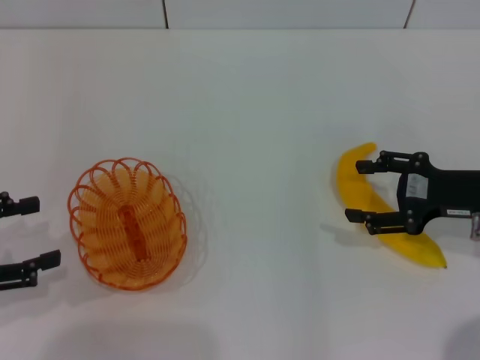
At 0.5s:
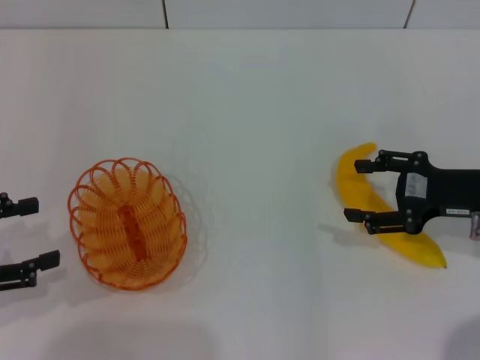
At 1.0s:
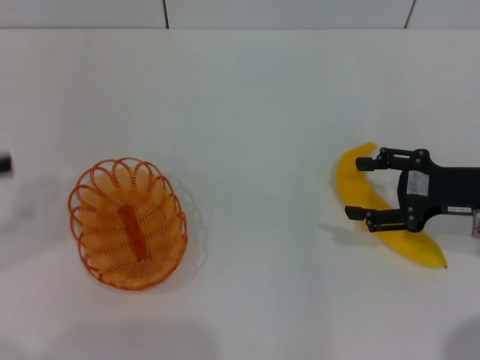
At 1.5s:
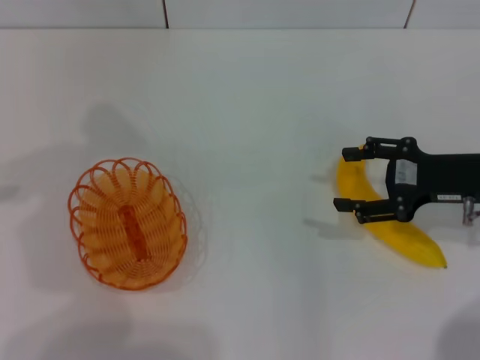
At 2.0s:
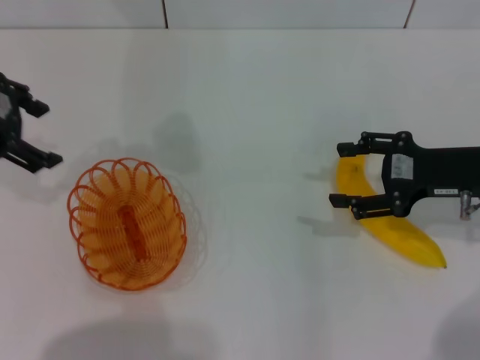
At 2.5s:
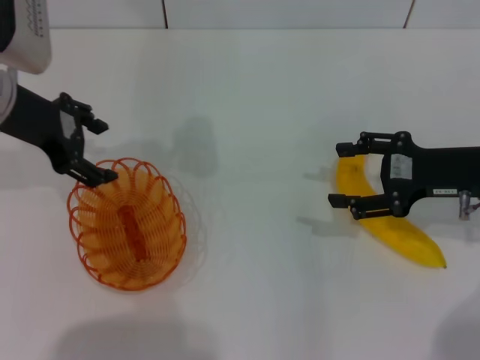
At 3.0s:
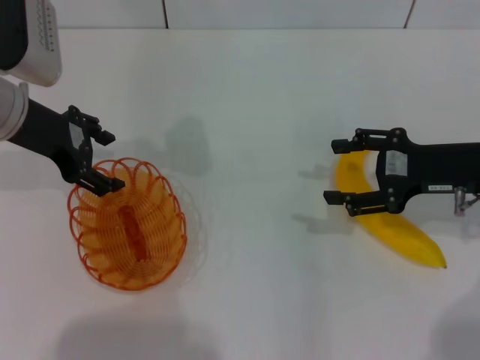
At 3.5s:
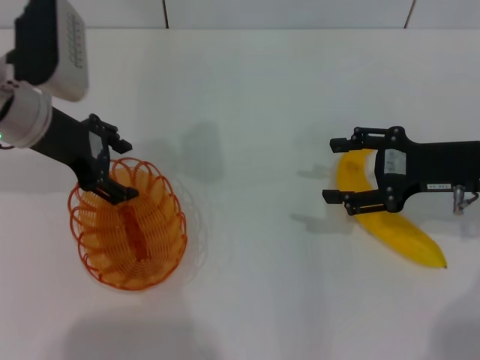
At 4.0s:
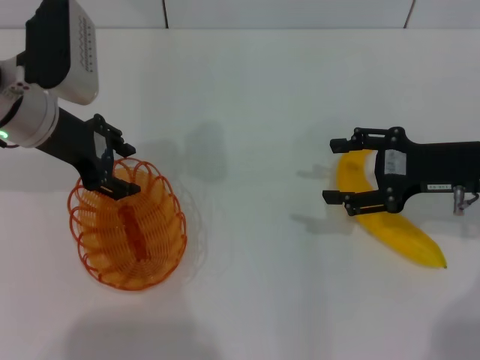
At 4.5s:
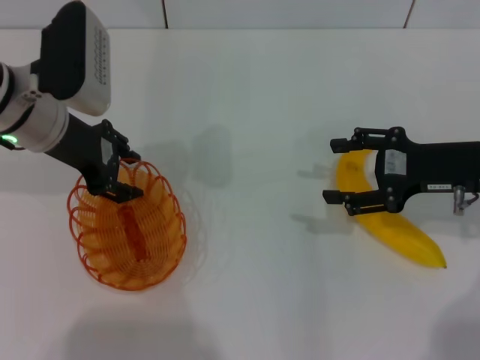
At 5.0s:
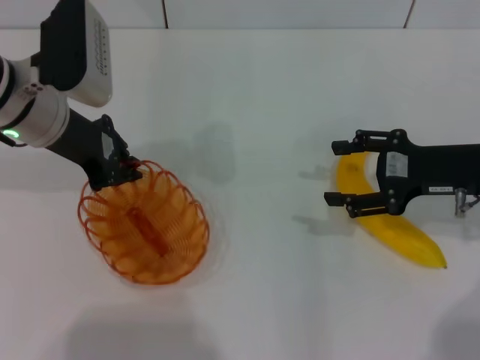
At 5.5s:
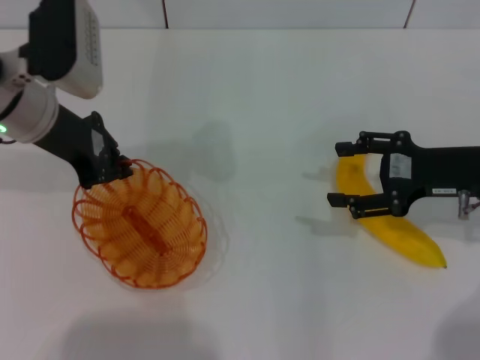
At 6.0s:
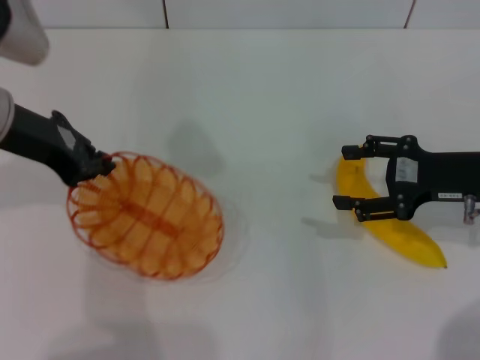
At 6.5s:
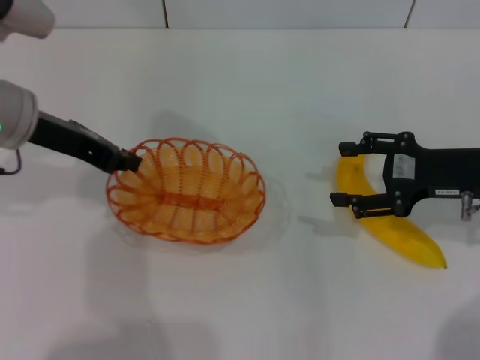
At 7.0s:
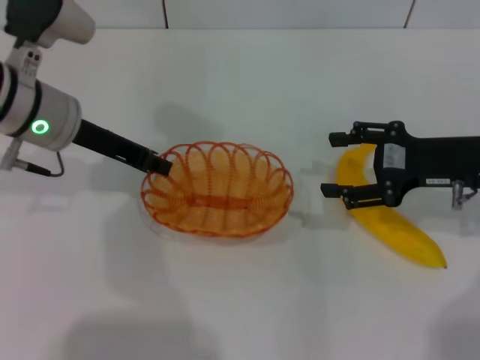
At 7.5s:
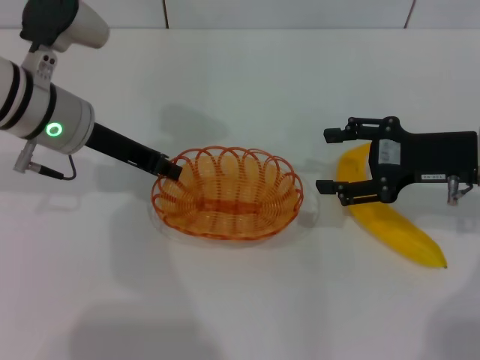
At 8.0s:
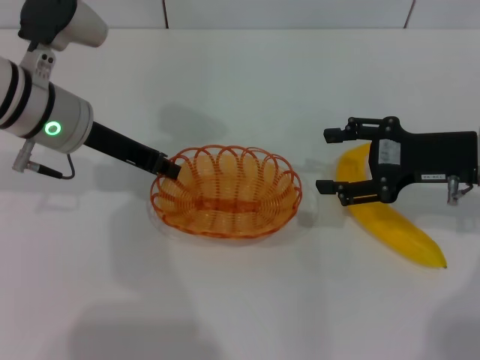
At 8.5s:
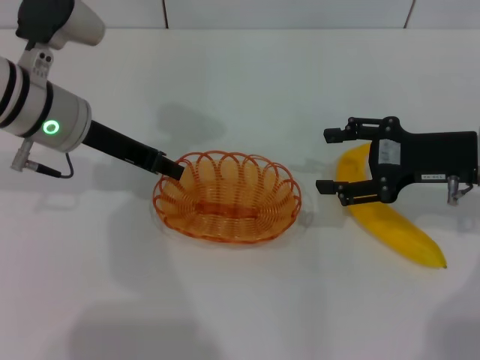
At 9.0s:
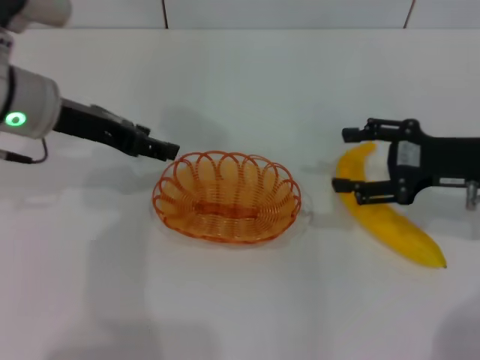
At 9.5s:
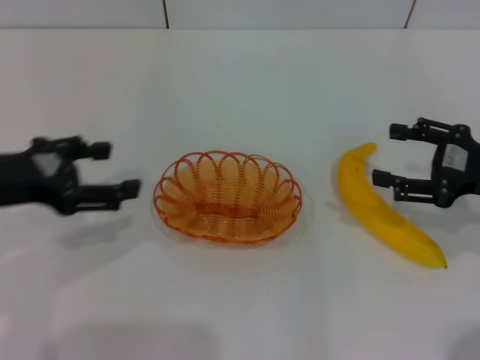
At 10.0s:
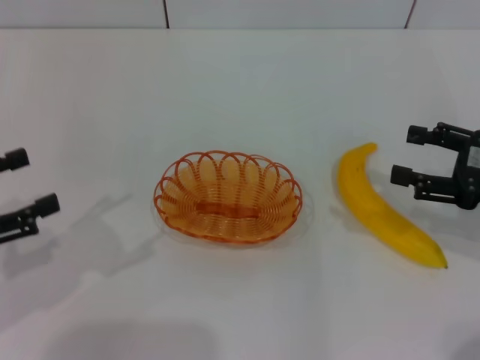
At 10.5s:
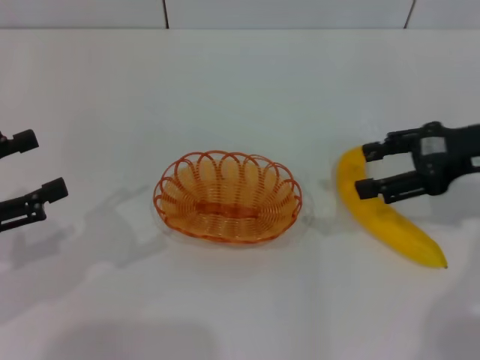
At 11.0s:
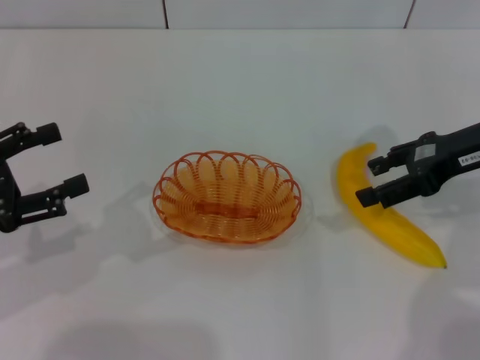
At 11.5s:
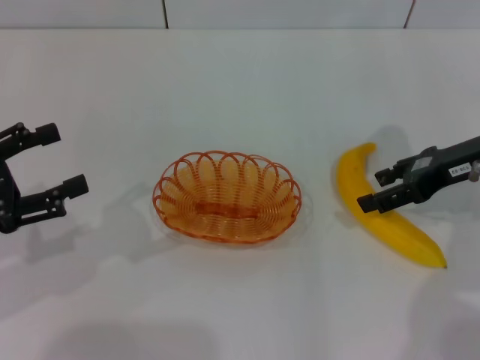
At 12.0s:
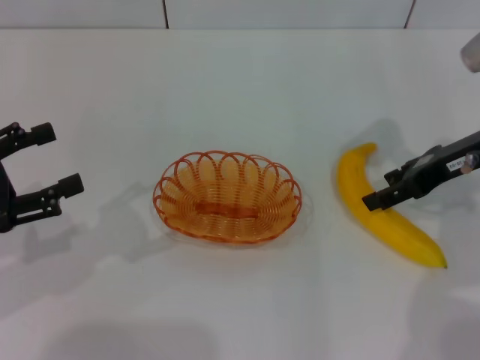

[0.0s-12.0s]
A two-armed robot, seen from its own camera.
Step, 0.0s to 5.5s: Pick up the basket with the left gripper.
Step, 6.5s to 9.0s: Place the basket in the center of view with the left gripper.
0.0s to 2.0s: The left gripper shifts roughly 20 cm forward, upward and to the right.
2.0s to 4.0s: The left gripper shifts about 10 cm downward and to the right.
4.0s to 6.0s: The left gripper changes place by approximately 5 cm, and closes.
6.0s to 8.0s: The left gripper moves approximately 5 cm.
8.0s to 10.0s: The left gripper moves backward and to the left, some 25 cm, and opens, while the right gripper travels to the right and backward by approximately 10 cm.
10.0s to 12.0s: The right gripper moves forward and to the left, approximately 10 cm.

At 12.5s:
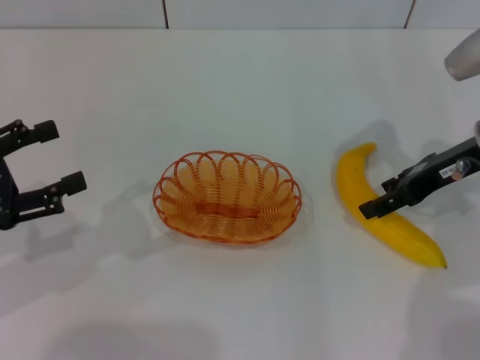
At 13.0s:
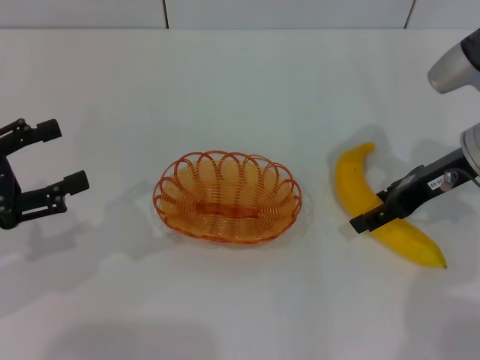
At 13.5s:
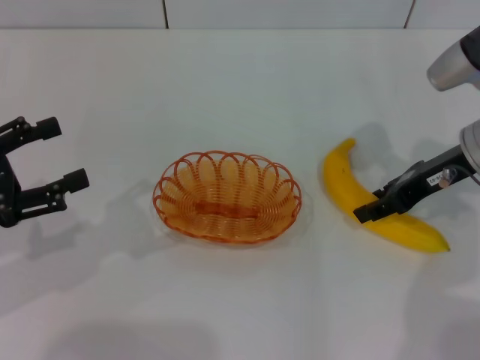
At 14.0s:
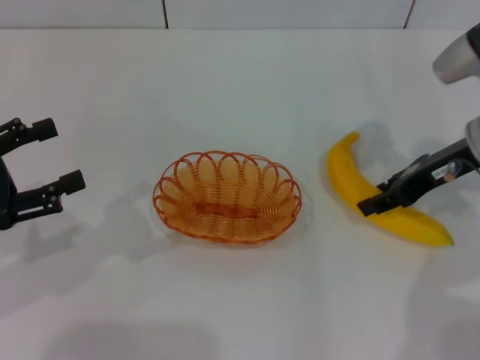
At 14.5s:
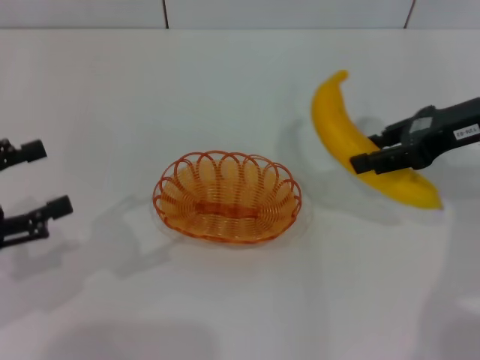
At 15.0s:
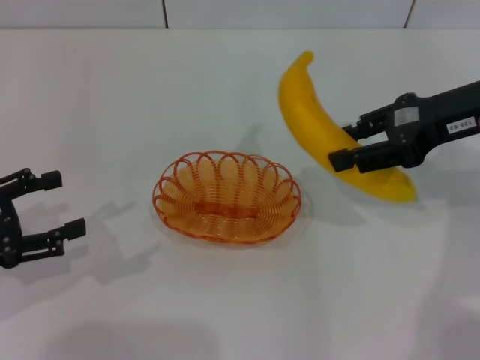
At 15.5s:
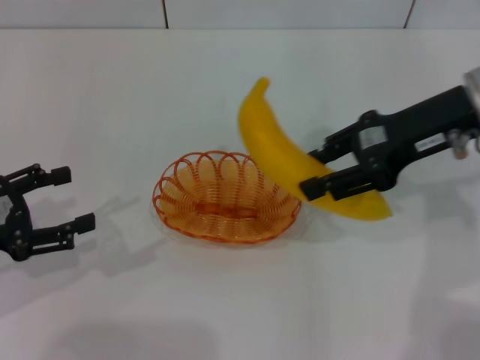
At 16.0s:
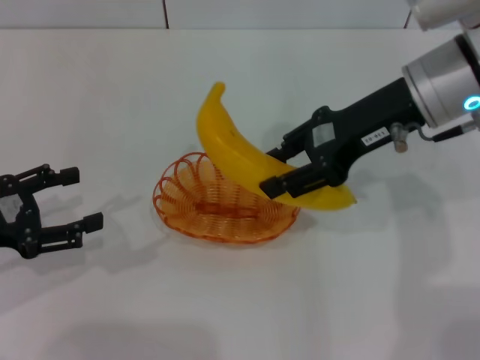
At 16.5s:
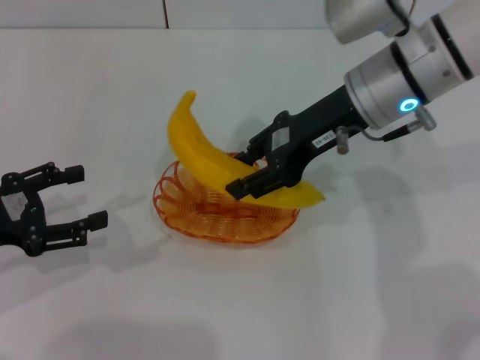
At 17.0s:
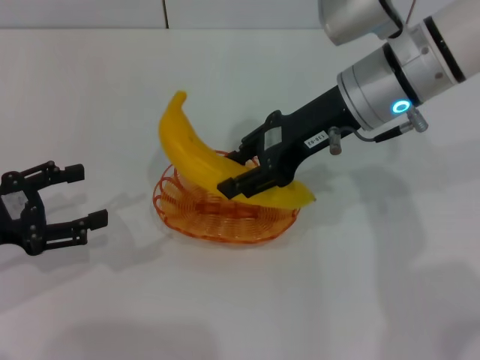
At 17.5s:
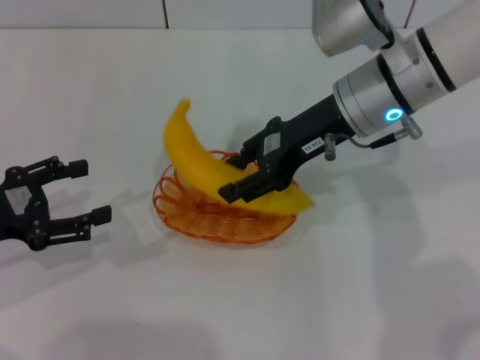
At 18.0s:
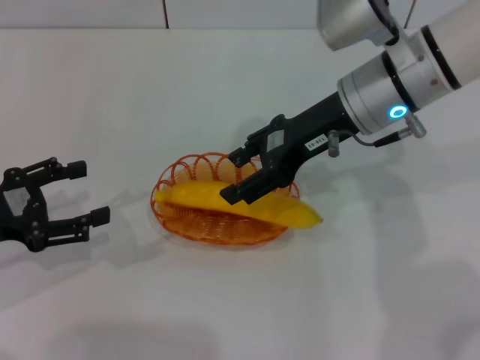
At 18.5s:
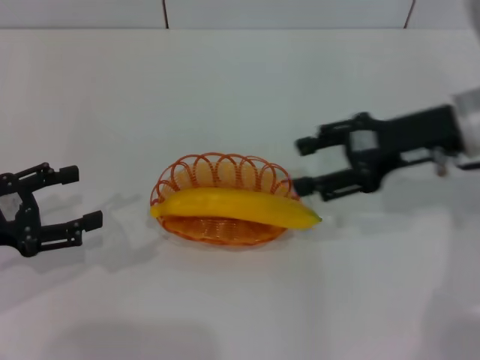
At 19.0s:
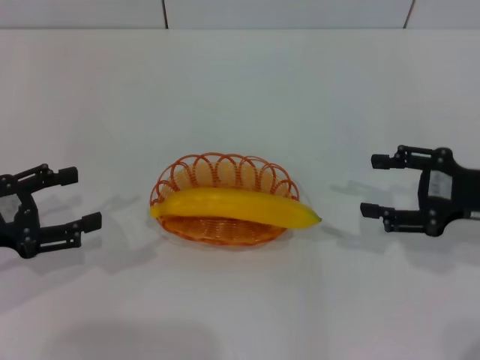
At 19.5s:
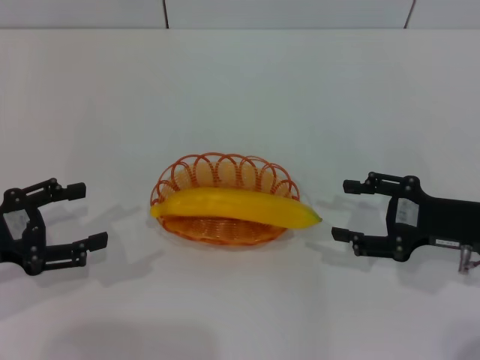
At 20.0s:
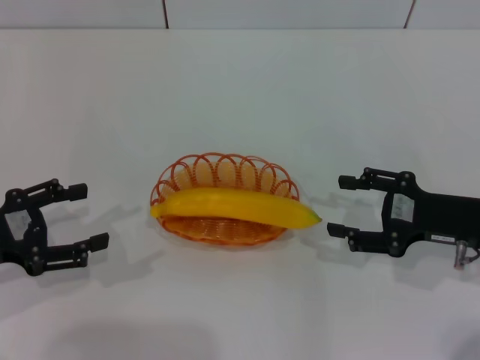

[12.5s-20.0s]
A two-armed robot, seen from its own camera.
Step, 14.5s to 18.0s: Place the banana into the basket with the right gripper.
12.5s to 14.5s: The right gripper is displaced upward by some 5 cm, and closes its fingers.
14.5s to 16.5s: The right gripper moves to the left, some 15 cm.
16.5s to 18.0s: The right gripper opens.
18.0s to 20.0s: The right gripper is displaced to the right, backward and downward by some 20 cm.

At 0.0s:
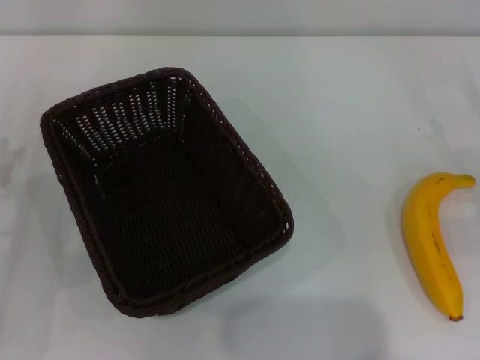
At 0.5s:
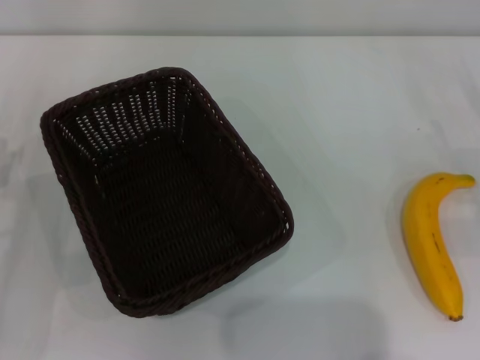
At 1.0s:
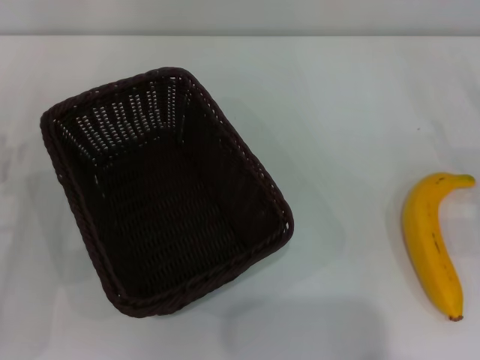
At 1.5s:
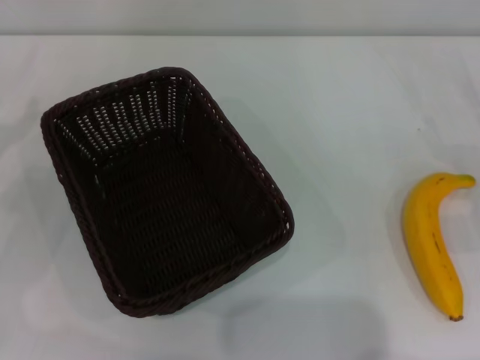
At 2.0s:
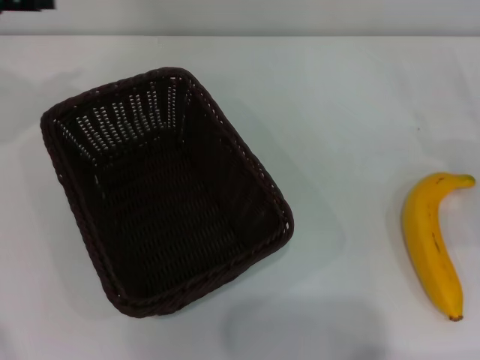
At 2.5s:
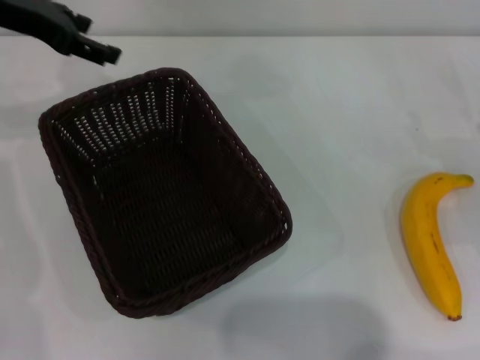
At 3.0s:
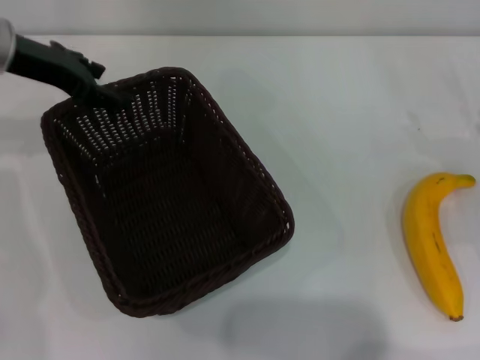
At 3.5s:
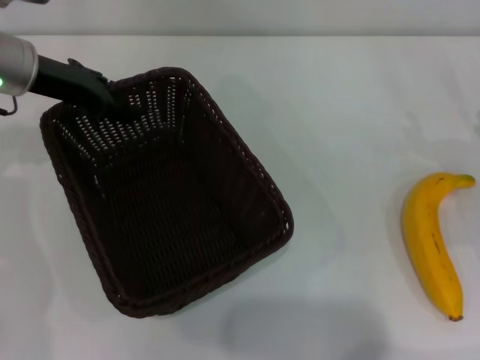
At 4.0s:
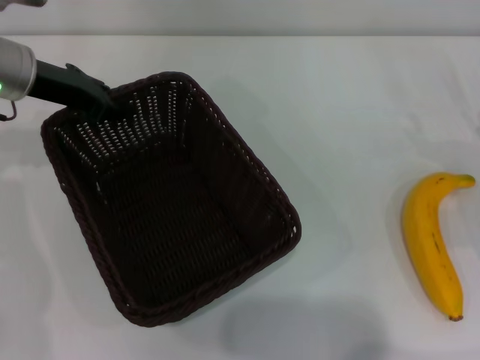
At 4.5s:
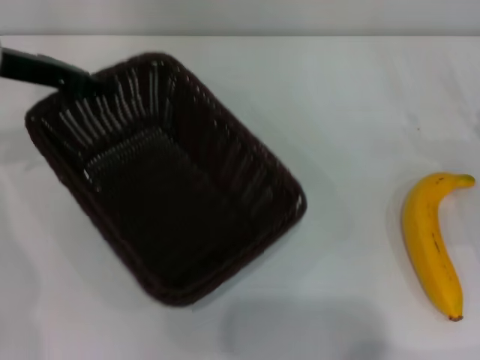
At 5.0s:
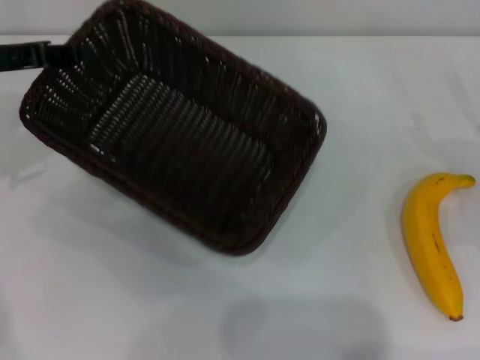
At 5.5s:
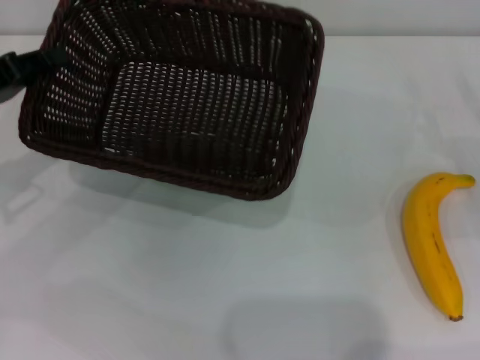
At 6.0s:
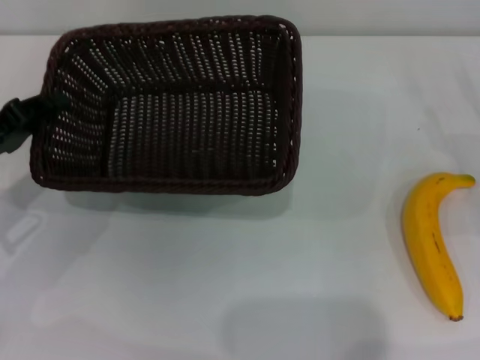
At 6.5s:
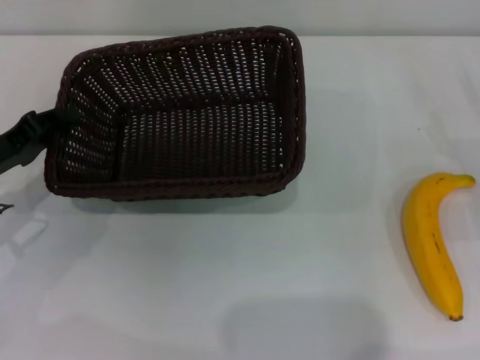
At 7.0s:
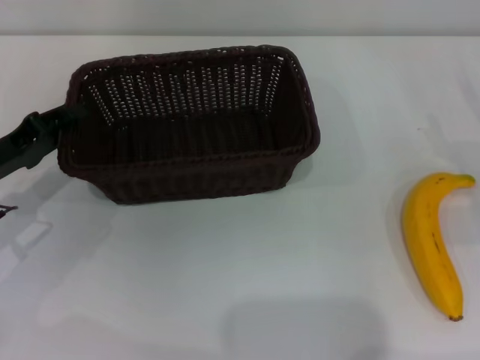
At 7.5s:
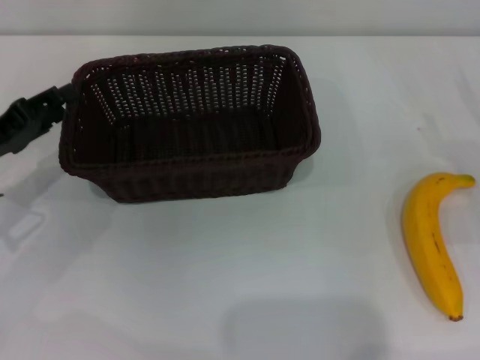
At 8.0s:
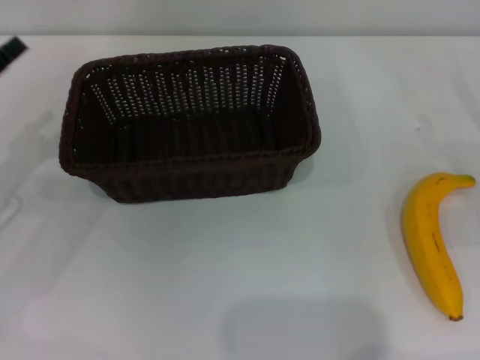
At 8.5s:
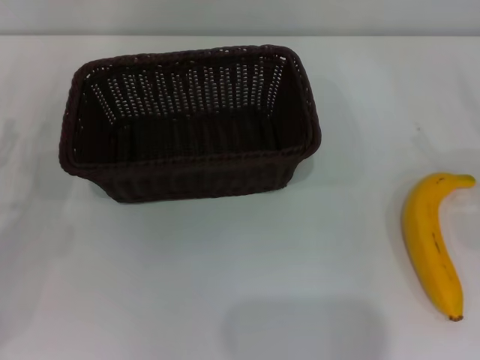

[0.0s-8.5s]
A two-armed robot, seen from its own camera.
Step, 0.0s to 4.0s: Pick up the dark basket with the left gripper.
Step, 5.0s to 7.0s: Place the dark basket in the center of view with the left gripper.
0.0s to 2.0s: The left gripper heads upward and forward, covering some 25 cm.
2.0s to 4.0s: The left gripper goes about 10 cm to the right and downward, and closes.
4.0s to 6.5s: The left gripper moves backward, downward and to the left, about 15 cm.
6.5s to 8.5s: The left gripper changes place by roughly 5 cm, and opens up.
